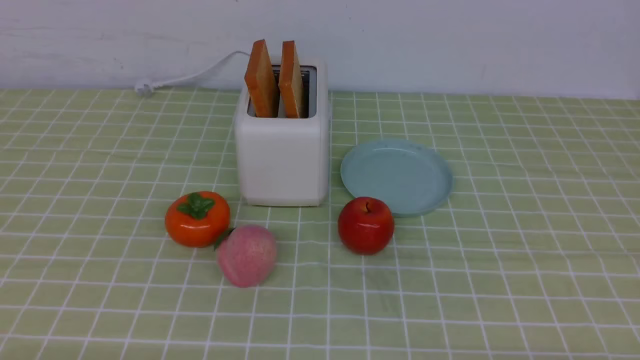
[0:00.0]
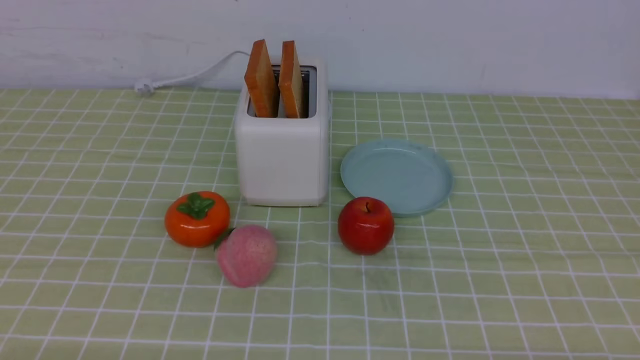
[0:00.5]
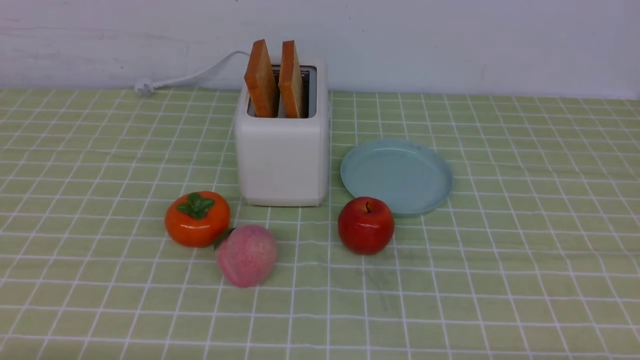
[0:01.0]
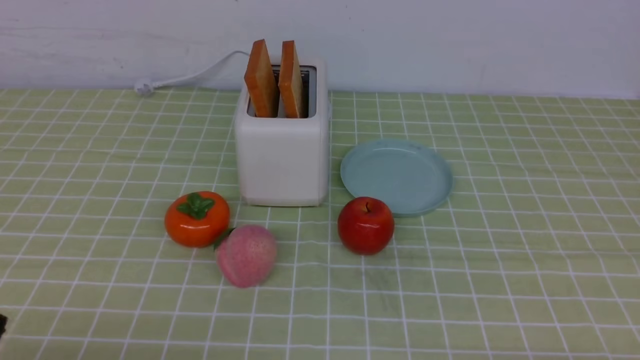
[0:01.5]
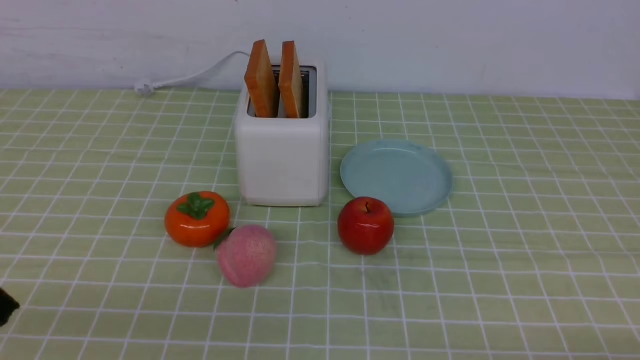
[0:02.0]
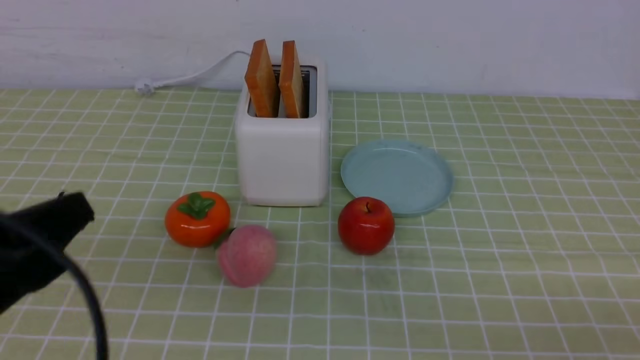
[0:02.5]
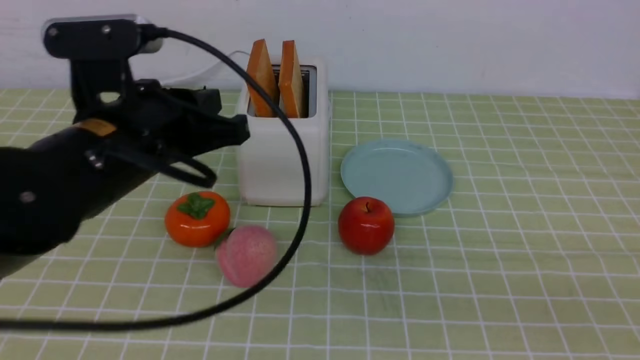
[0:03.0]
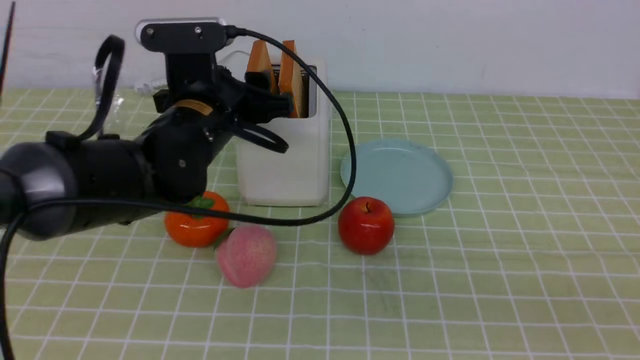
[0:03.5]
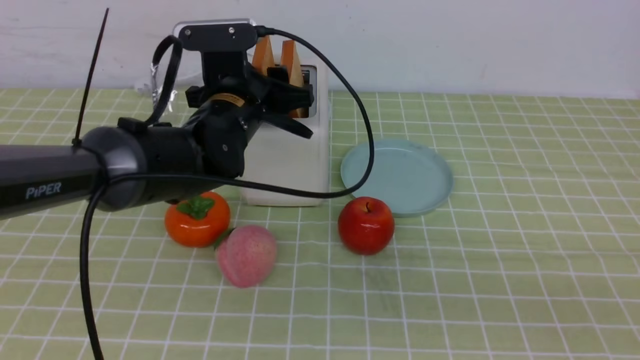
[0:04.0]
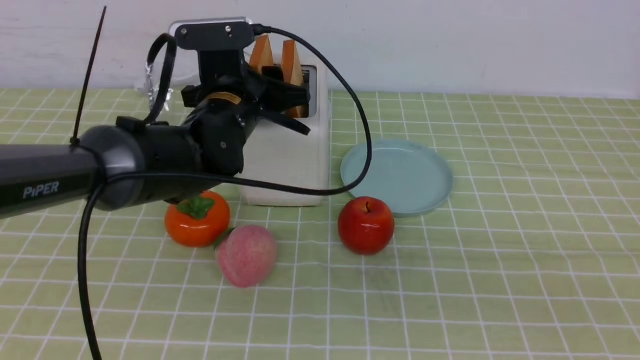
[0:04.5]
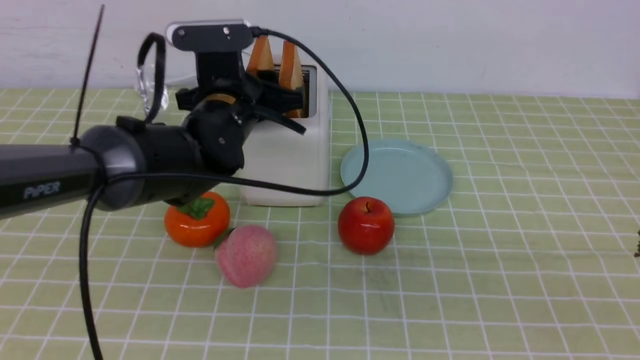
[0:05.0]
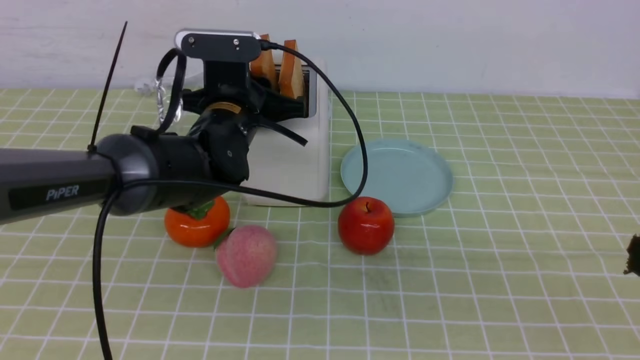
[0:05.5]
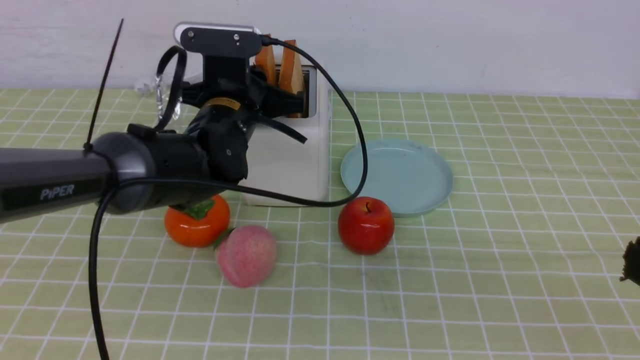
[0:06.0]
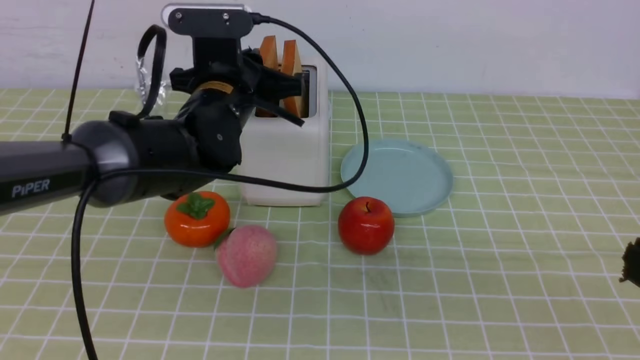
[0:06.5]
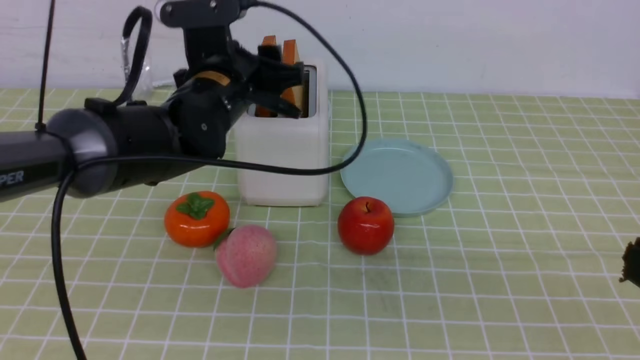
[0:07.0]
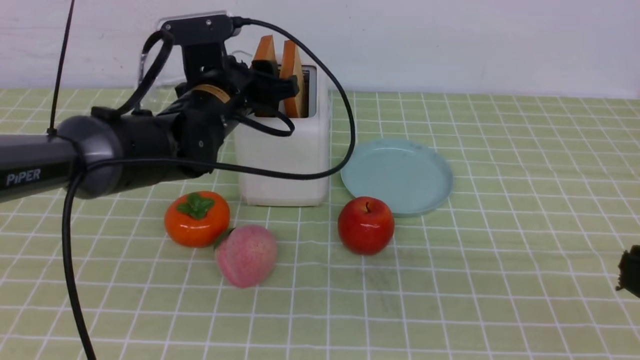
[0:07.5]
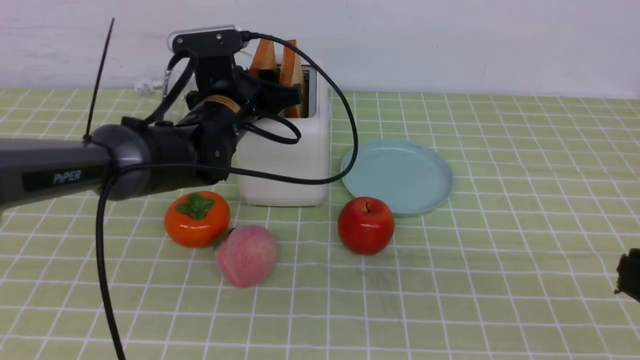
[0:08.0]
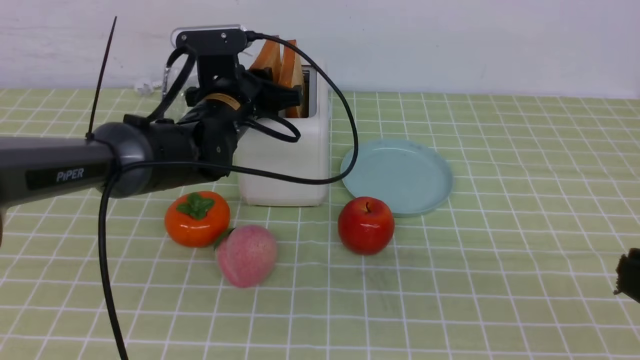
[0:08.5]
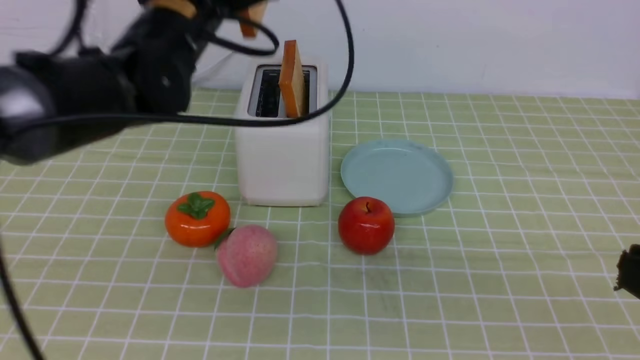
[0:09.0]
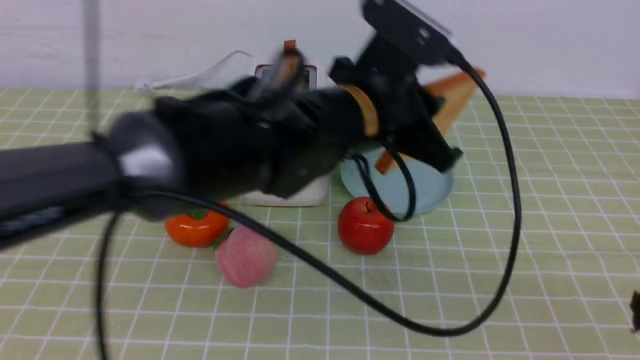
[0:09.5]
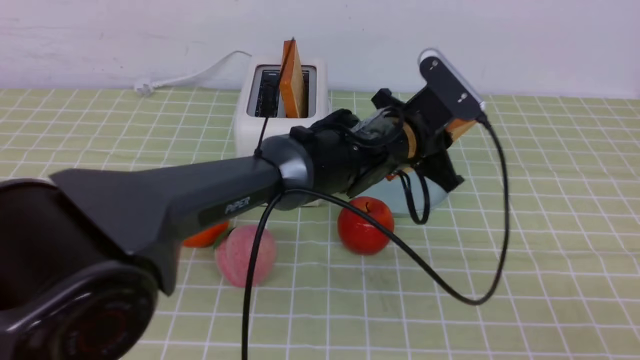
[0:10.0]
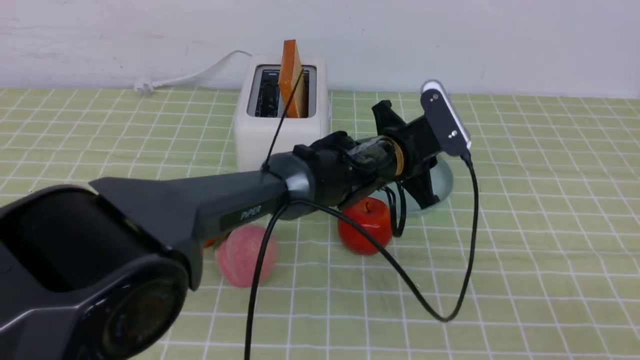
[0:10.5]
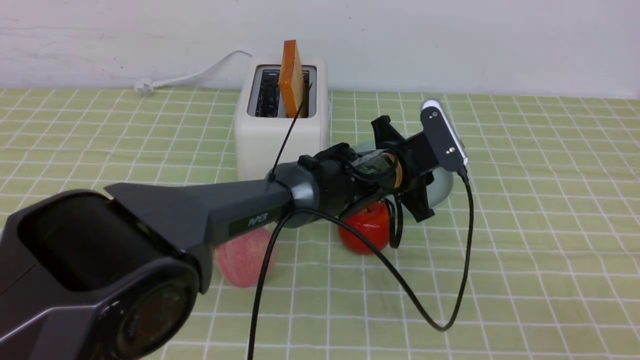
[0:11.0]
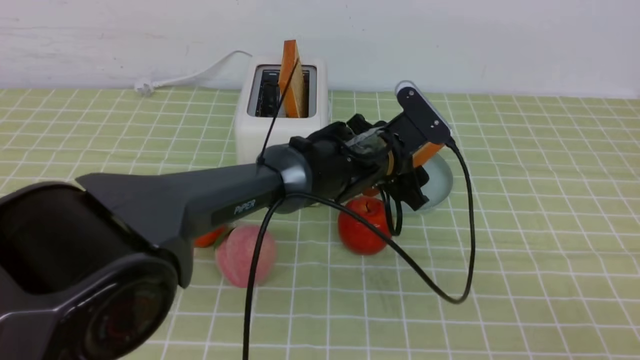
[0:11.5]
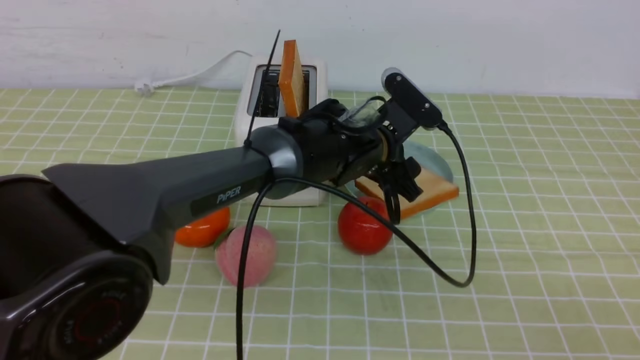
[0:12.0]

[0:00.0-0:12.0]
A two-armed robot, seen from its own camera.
Task of the whole recording: take toasted bread from bread machine on green coffee tablecloth place on plate.
Step, 0:00.0 to 0:08.5: use the left arm to take out a slice of bread.
0:02.0 to 0:04.0: The left gripper moves forward and to the right, about 40 cm, and opens; the right gripper heads upward, covering about 15 cm, and closes up.
0:04.0 to 0:06.0: The left gripper closes its fingers.
0:06.0 to 0:08.0: The left gripper opens its fingers.
0:08.0 to 0:10.0: The left gripper shifts some 20 cm to the right, and closes.
0:10.0 to 0:12.0: The left gripper opens up.

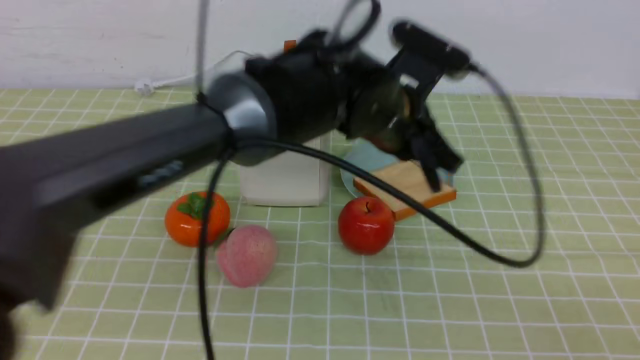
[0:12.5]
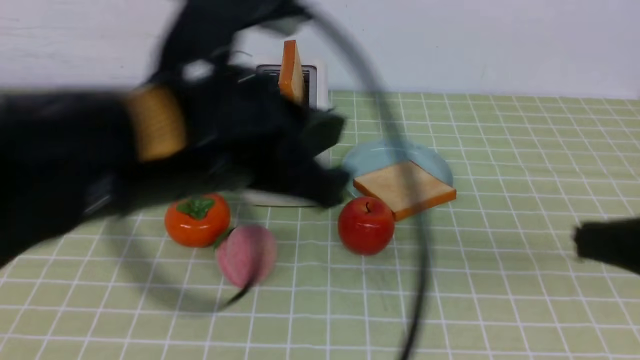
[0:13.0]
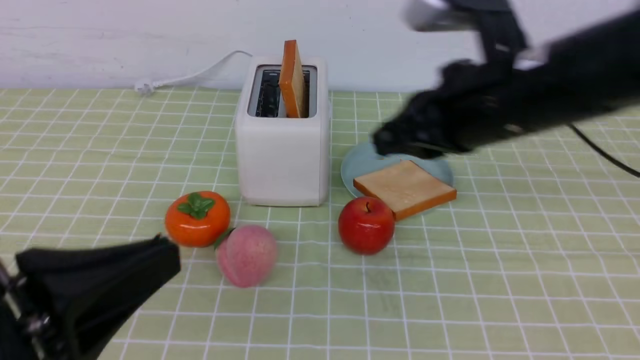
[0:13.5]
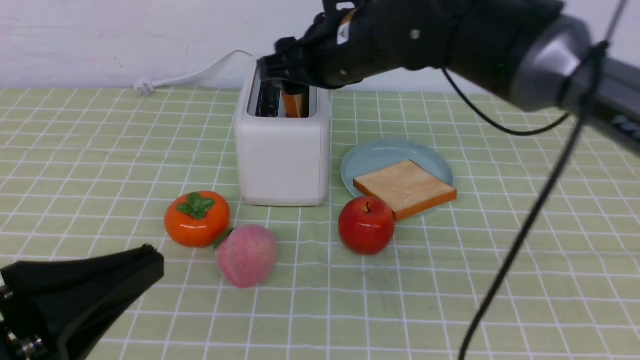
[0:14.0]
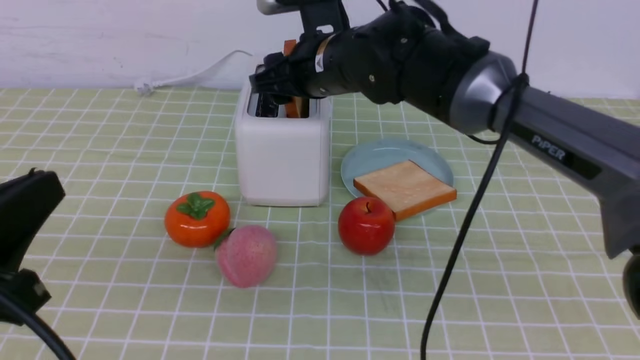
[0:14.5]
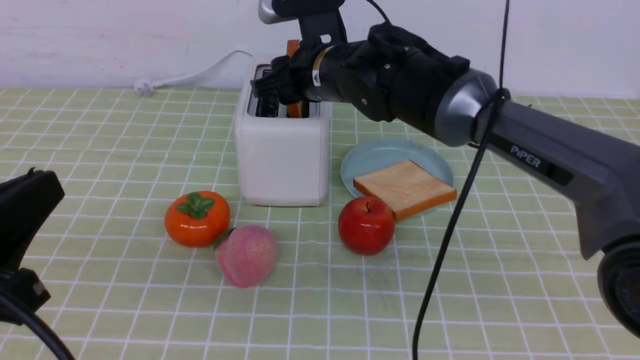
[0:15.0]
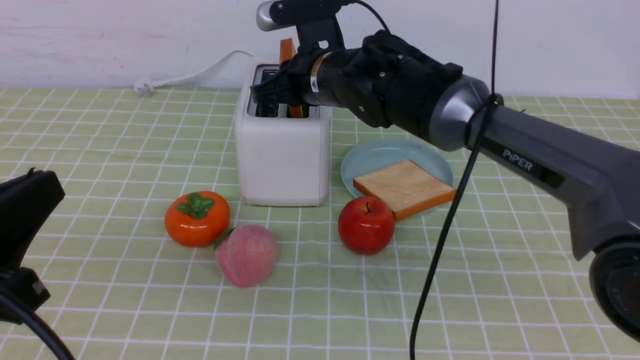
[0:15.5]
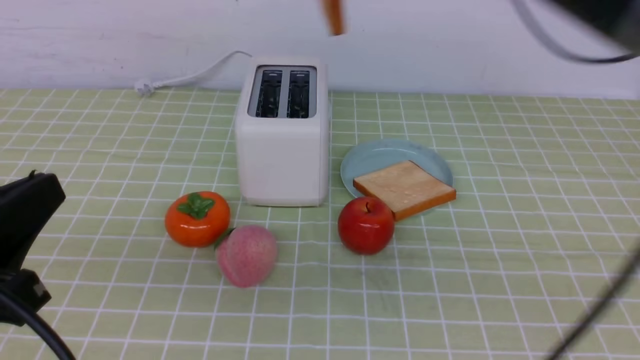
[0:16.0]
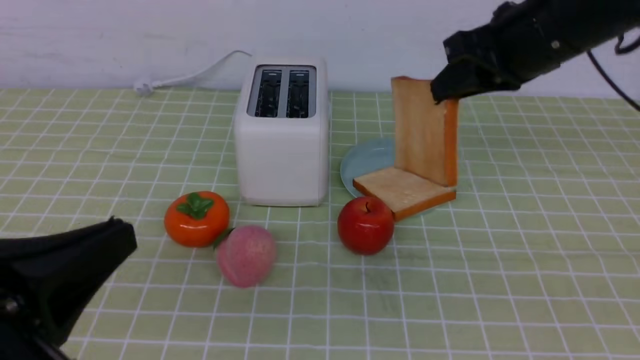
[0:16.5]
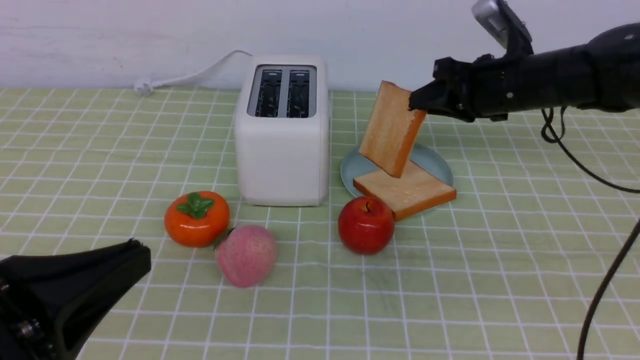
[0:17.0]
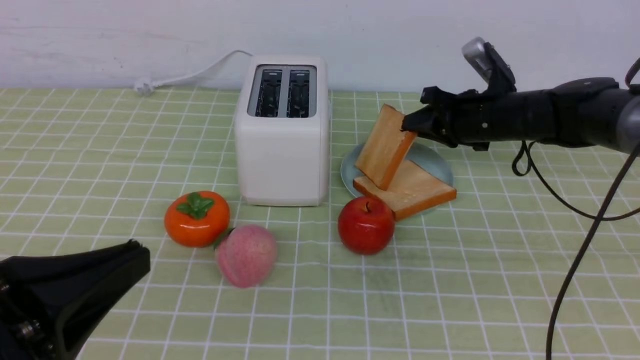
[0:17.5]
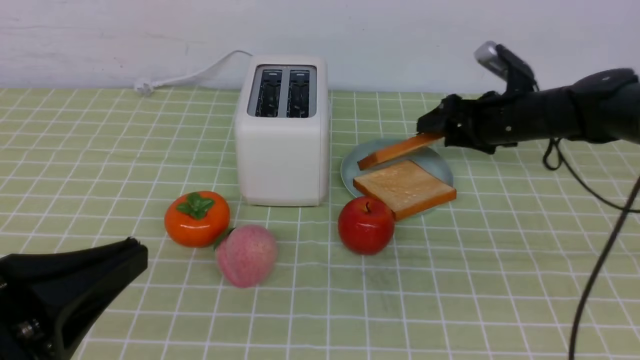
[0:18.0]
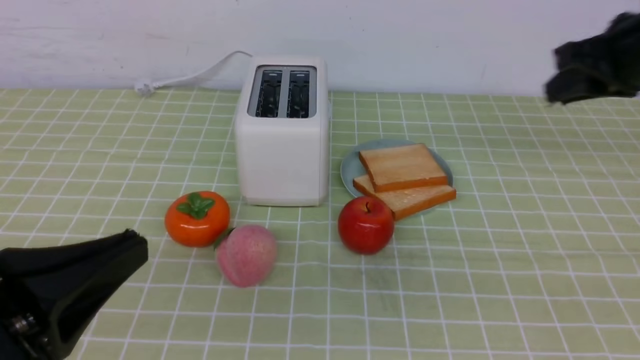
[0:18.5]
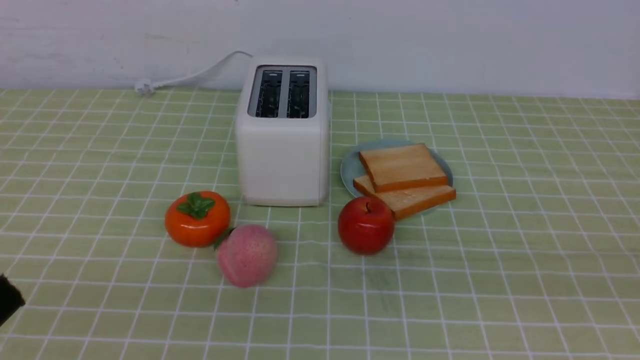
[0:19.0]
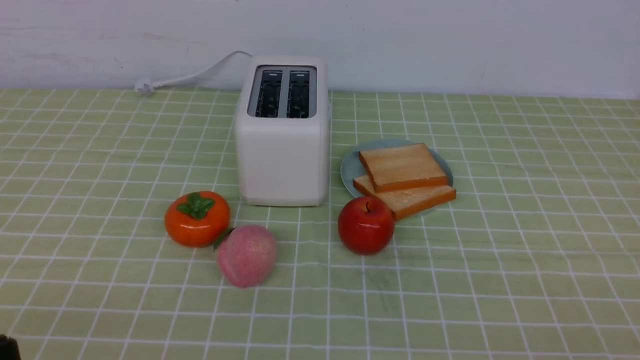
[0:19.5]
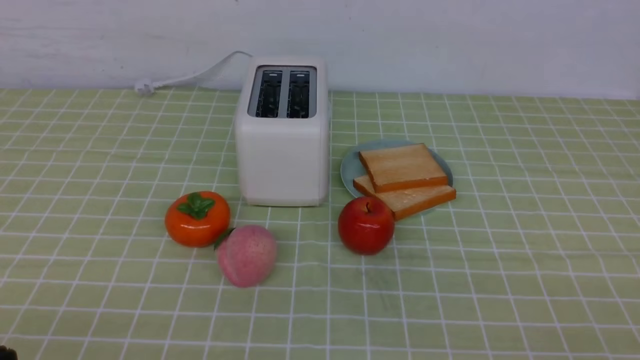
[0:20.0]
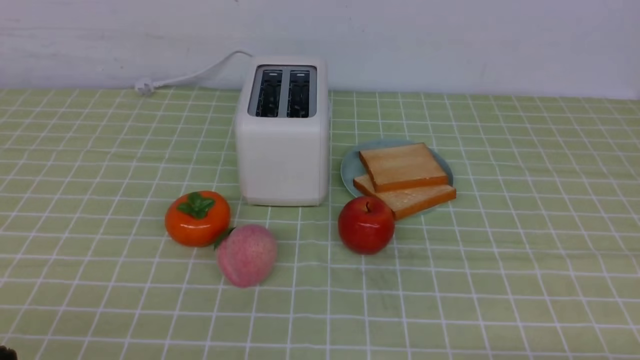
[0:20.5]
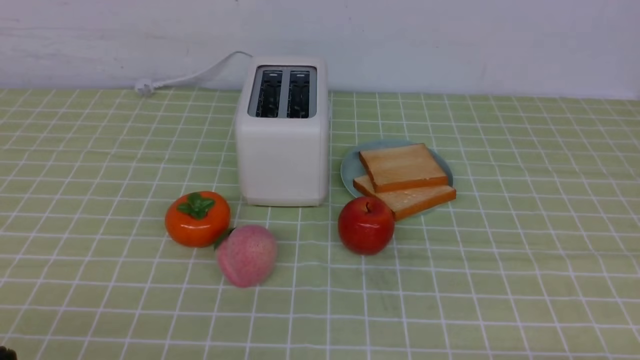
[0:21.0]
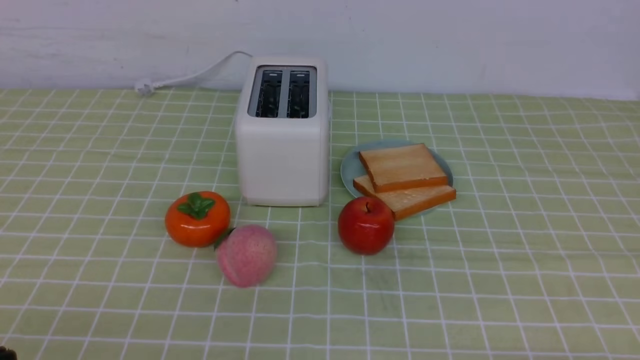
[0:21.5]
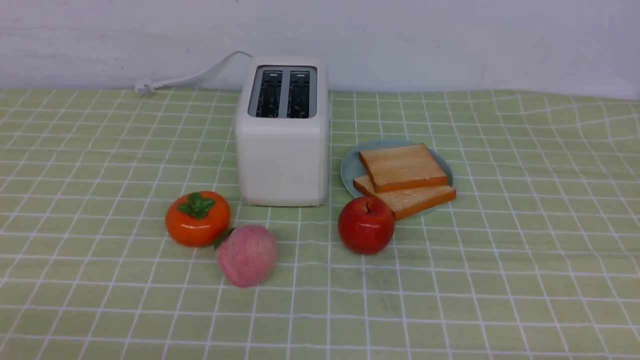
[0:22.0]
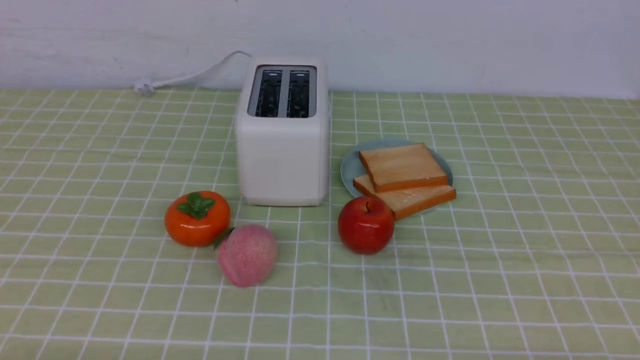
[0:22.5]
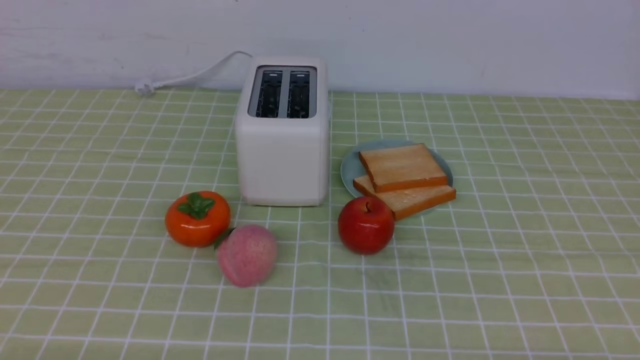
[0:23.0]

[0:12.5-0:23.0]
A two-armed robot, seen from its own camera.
Task of the whole recording: take toasted bread from bread machine on green coffee tablecloth place on plate.
Step, 0:12.5 to 0:15.5: use the right arm to take out a slice of bread.
Step, 0:16.0 to 0:18.0: use the right arm to put a slice of bread into the plate.
0:12.5 to 0:14.5: The left gripper goes about 40 cm to the left and backward, and closes its fingers. The right gripper travels forward and to the left by some 40 cm, and opens up.
0:14.5 to 0:16.5: The right gripper is displaced to the right and upward by some 20 cm, and closes.
0:16.5 to 0:19.0: The right gripper is displaced backward and to the right by some 25 cm, and opens, then closes again; the left gripper moves approximately 5 cm.
